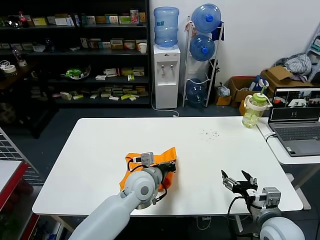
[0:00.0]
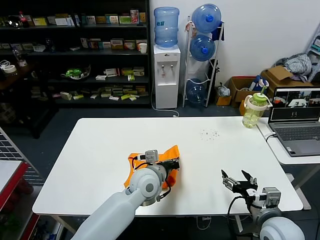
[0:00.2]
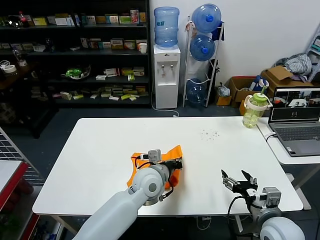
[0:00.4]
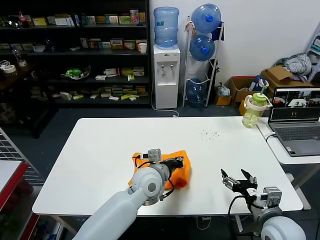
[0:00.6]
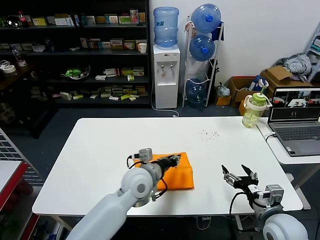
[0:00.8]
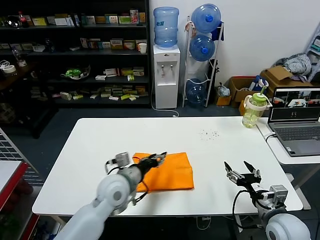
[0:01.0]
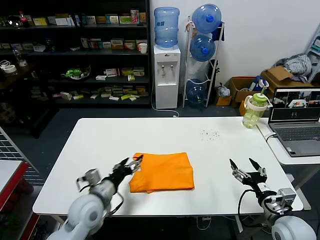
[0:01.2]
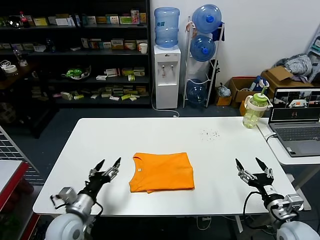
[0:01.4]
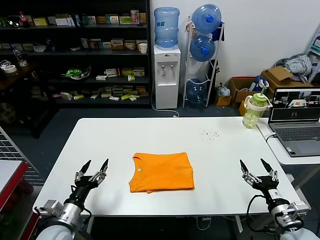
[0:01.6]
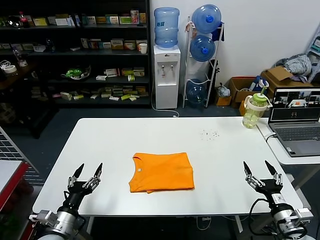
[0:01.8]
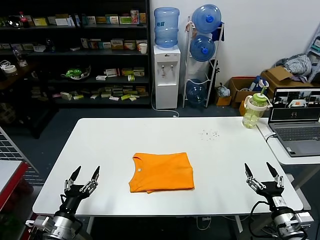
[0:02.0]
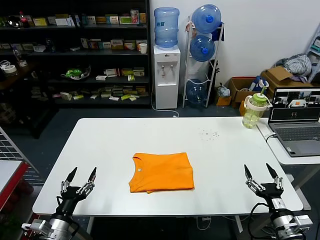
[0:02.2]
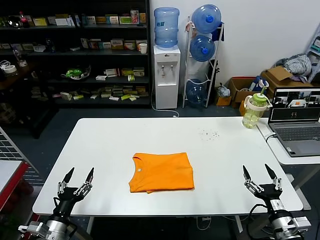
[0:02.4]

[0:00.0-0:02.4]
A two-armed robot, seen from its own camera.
Task of the whole recording: fold and organize the clothes.
0:00.0 to 0:01.2: The right gripper changes place by about 5 cm. The left gripper moves to the left, about 15 cm, and opens.
0:01.2 to 0:02.4: The left gripper shifts about 20 cm to the left, backward and downward. Meanwhile the right gripper travels backward by some 5 cm.
